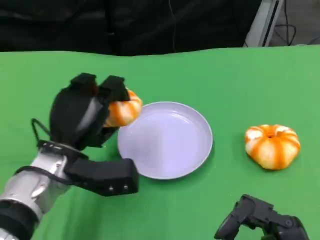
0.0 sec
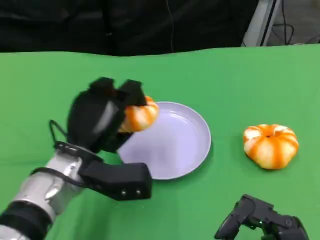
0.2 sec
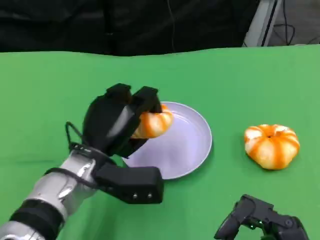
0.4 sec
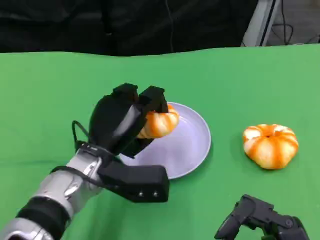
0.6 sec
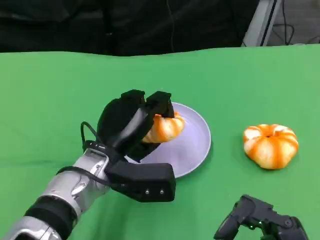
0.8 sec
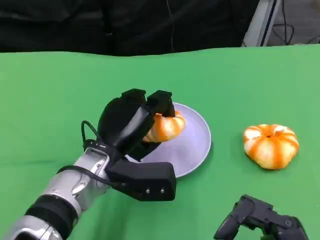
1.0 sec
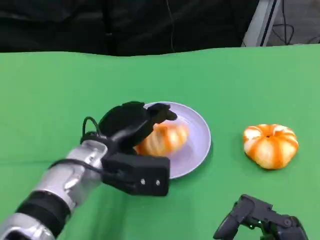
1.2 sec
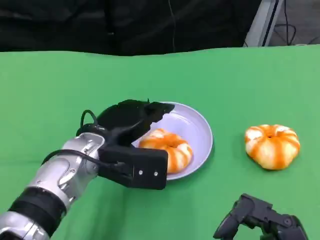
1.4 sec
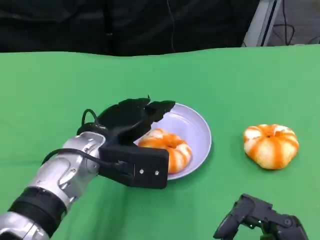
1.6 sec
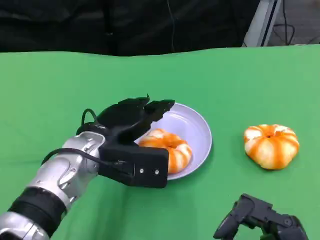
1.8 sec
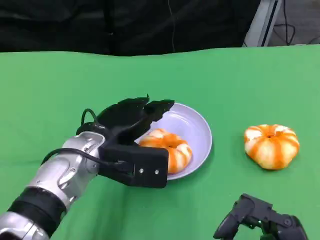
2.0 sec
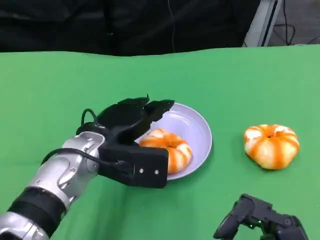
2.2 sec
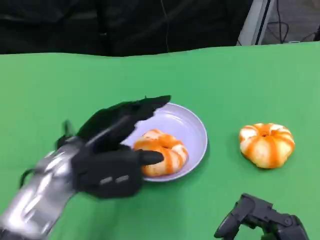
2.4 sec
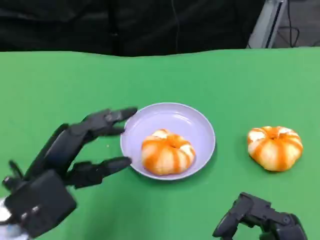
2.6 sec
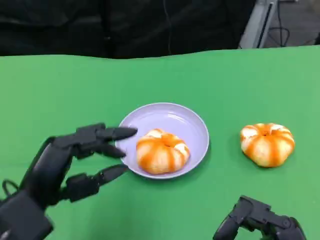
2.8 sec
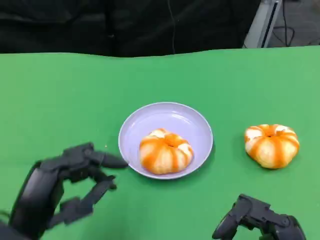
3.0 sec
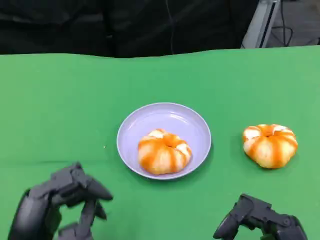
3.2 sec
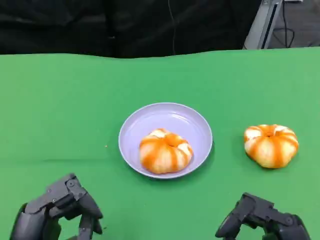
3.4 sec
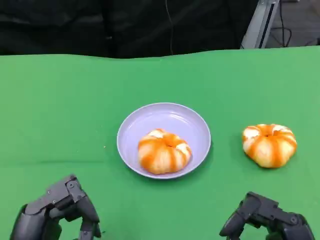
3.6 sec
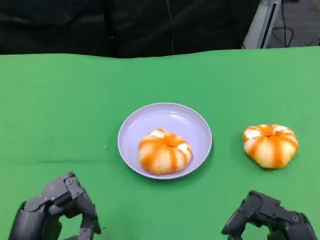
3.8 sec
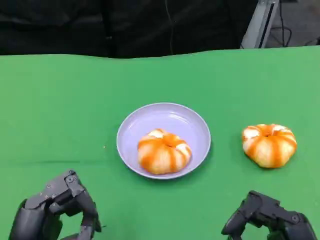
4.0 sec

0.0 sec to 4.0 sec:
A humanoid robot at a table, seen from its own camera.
Task of the whole recording: Grasp the bread from the table and place it into the plate.
1.4 sec to 2.6 sec: The left hand moves backward and to the left, approximately 15 cm.
2.6 sec to 4.0 sec: The left hand travels backward by some 10 cm.

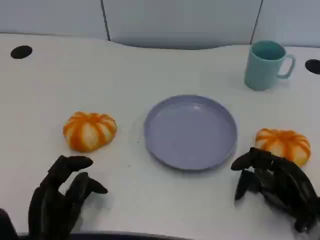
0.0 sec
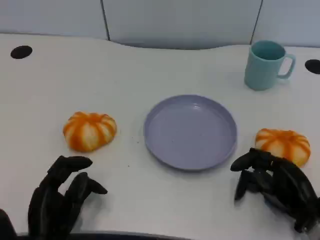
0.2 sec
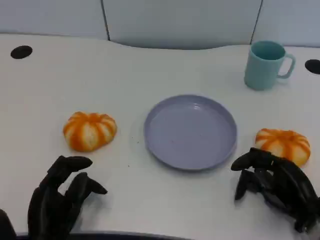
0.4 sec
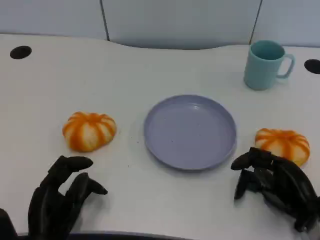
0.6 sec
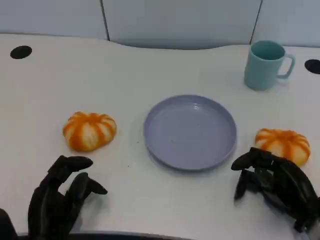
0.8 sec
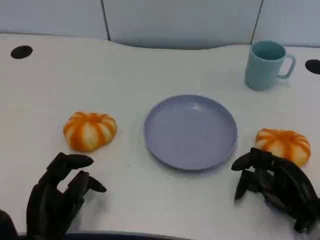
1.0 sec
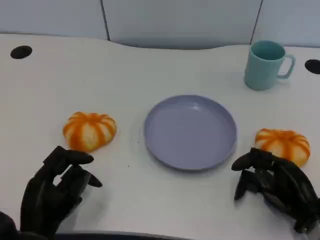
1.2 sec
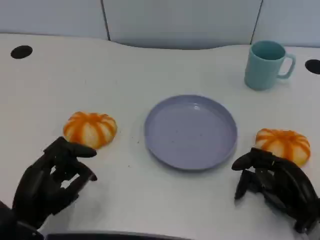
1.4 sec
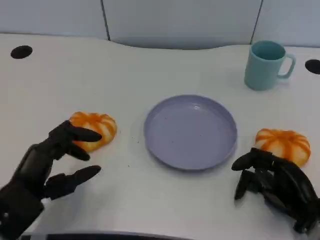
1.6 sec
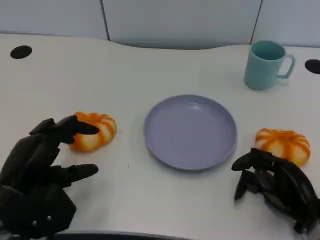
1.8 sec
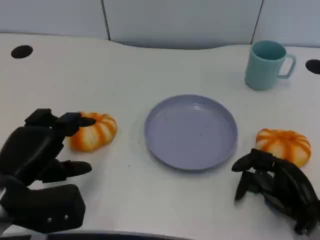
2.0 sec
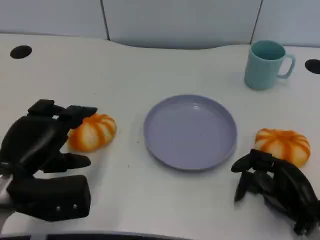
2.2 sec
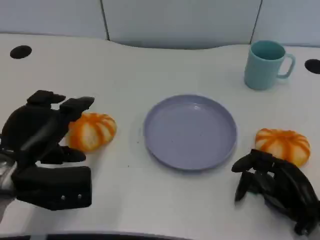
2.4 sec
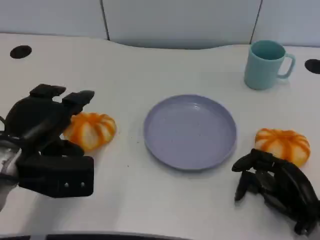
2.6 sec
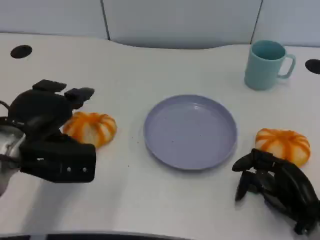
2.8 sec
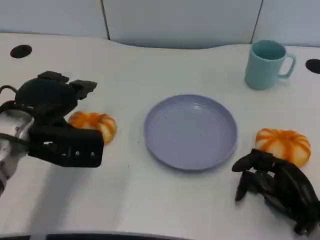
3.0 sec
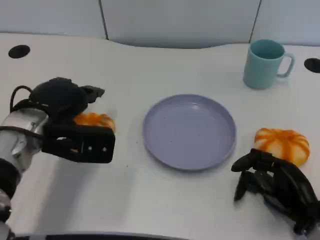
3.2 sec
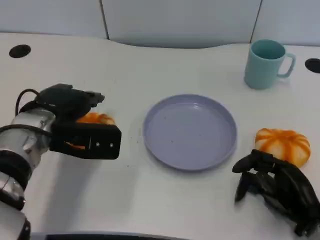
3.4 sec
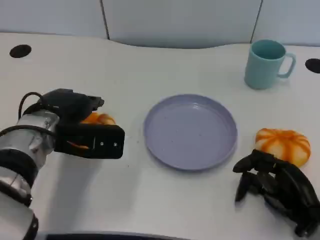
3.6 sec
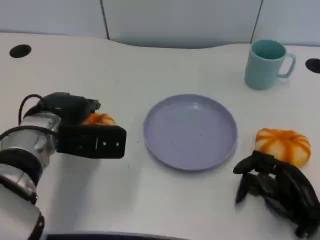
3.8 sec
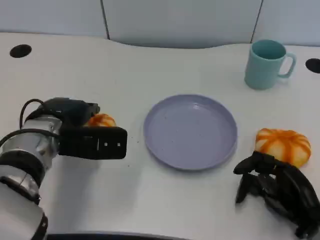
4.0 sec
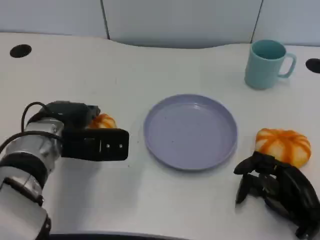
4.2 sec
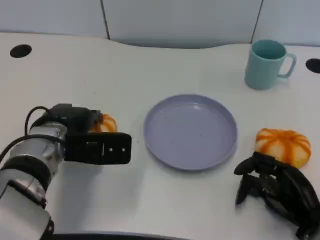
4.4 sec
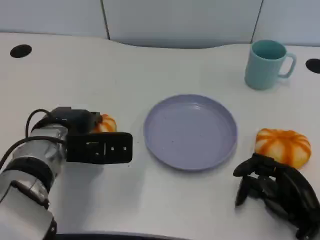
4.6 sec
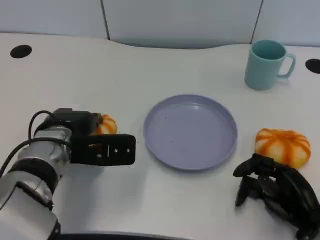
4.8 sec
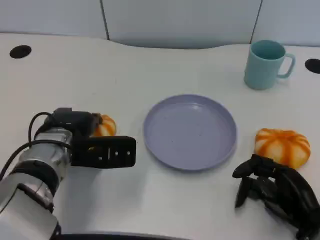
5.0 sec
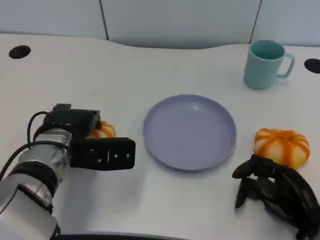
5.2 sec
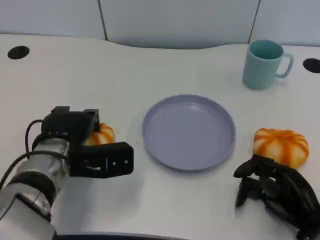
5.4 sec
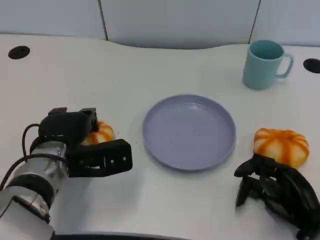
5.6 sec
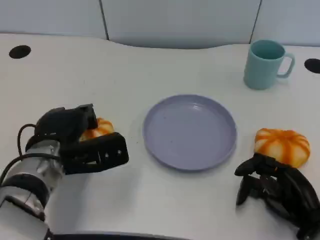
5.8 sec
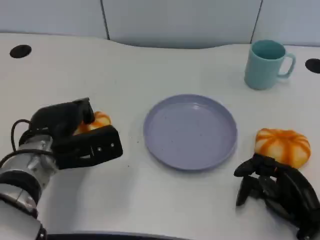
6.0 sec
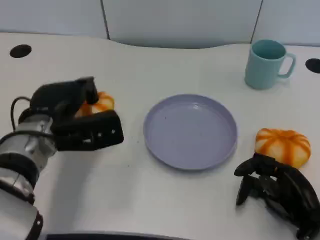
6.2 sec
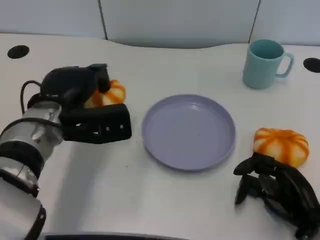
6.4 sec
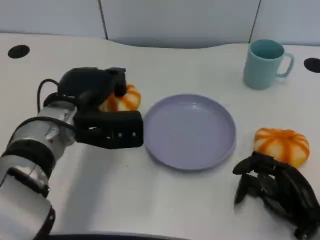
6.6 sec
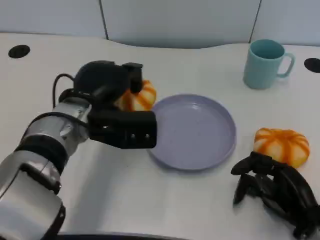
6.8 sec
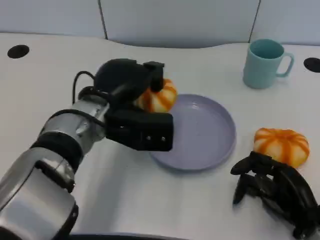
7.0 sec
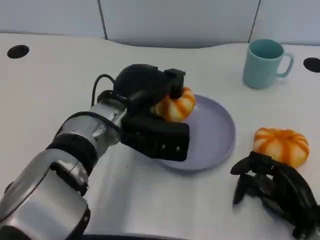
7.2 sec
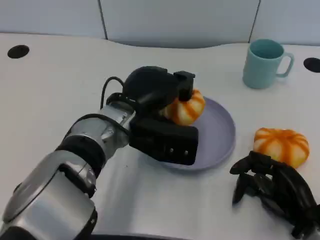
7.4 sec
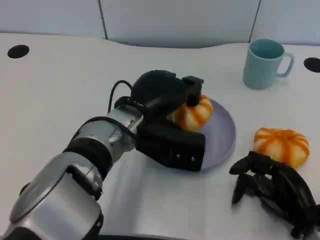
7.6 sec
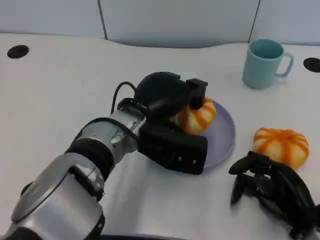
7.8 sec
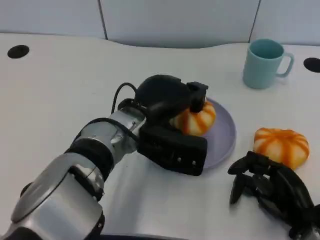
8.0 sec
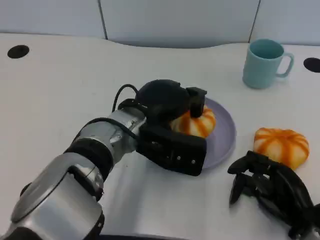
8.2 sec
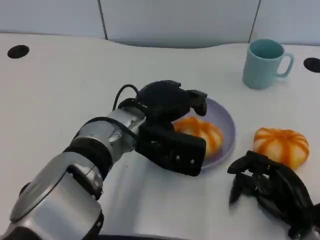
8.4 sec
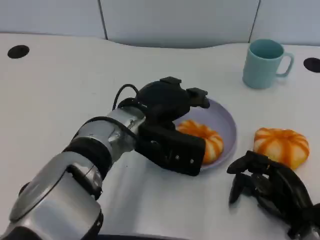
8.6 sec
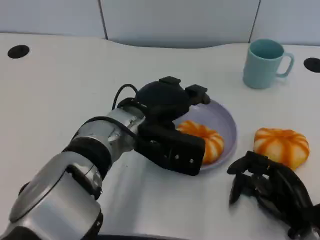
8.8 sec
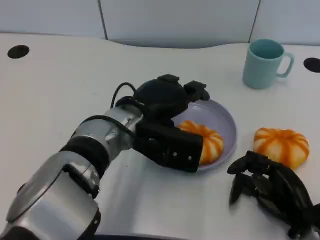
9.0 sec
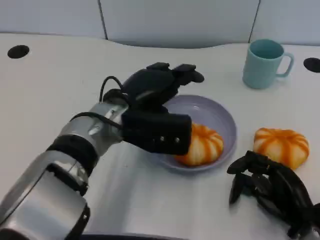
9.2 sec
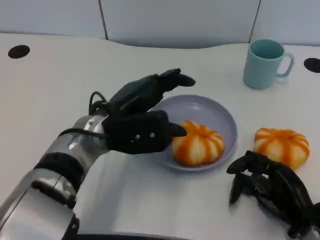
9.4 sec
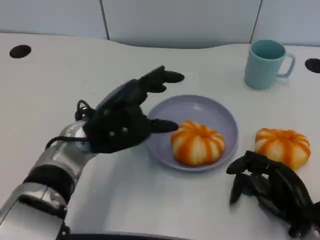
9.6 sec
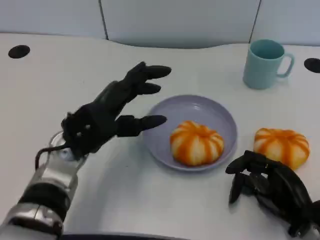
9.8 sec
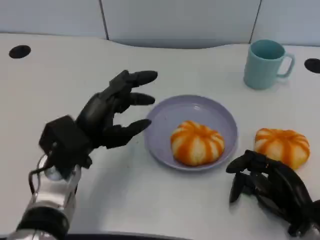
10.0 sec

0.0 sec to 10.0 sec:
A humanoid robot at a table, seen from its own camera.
Task of the whole recording: Grasp the bread from the table and place it into the plate.
0.0 sec to 1.4 sec: The left hand changes place by approximately 5 cm.
1.4 sec to 2.8 sec: The left hand travels forward and upward by about 15 cm.
2.8 sec to 4.2 sec: The left hand shifts about 5 cm to the right.
5.8 sec to 7.2 sec: The left hand is displaced to the right and upward by roughly 10 cm.
8.6 sec to 10.0 sec: The left hand goes approximately 10 cm to the left.

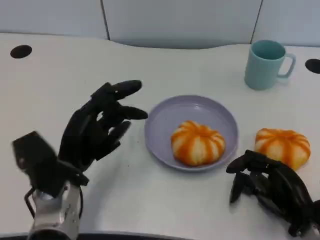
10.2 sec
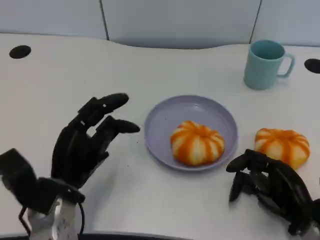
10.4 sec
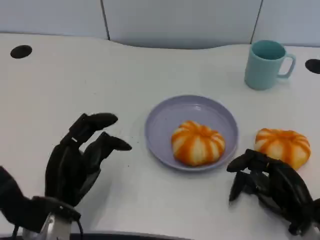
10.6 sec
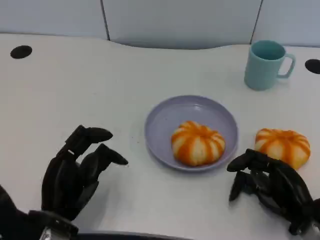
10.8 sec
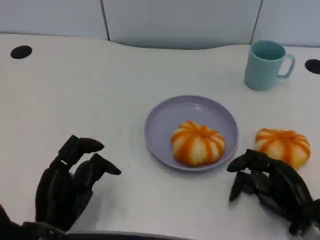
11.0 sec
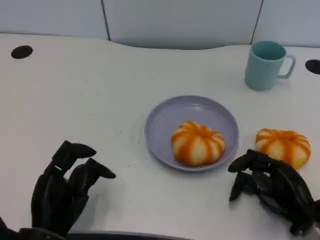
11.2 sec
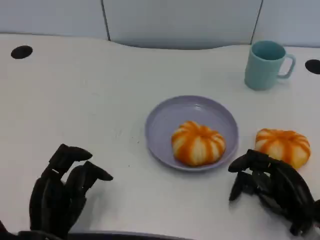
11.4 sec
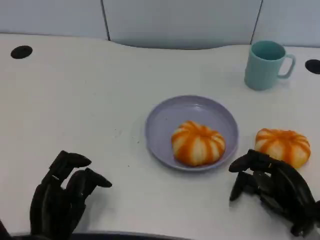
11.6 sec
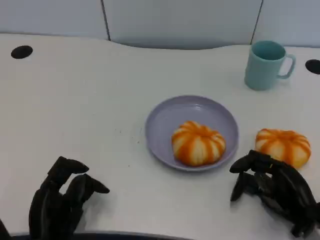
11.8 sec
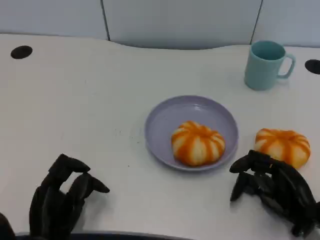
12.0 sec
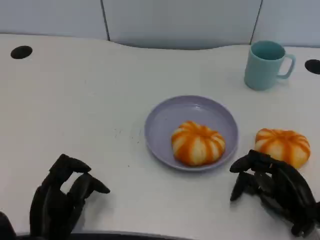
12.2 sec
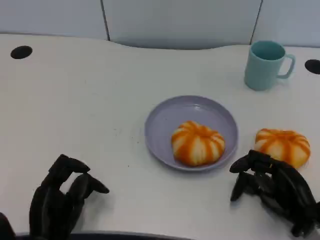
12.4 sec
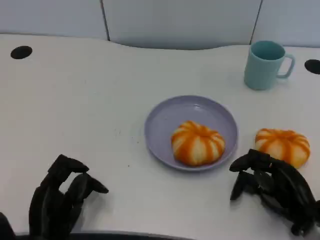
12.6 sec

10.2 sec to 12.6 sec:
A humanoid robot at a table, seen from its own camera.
Task of the whole recording: Grasp the bread from the table and place it into the plate.
10.2 sec to 11.4 sec: The left hand is displaced backward by approximately 10 cm.
11.4 sec to 12.6 sec: There are only small adjustments of the hands.

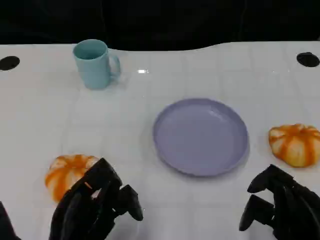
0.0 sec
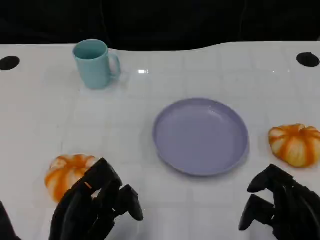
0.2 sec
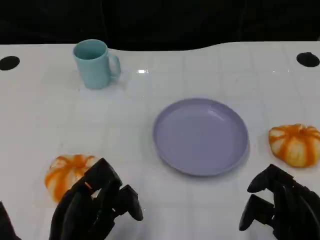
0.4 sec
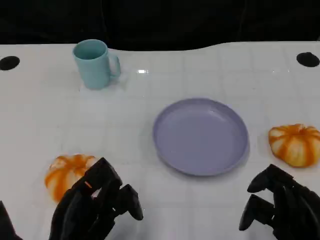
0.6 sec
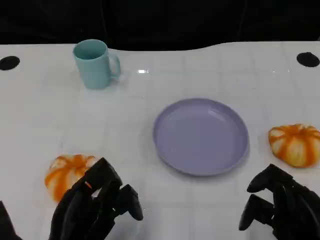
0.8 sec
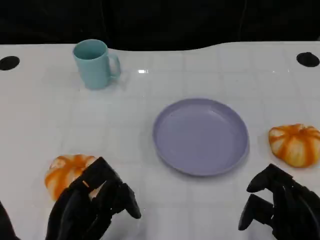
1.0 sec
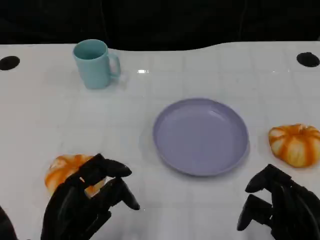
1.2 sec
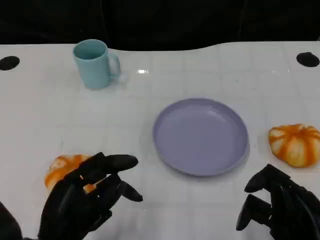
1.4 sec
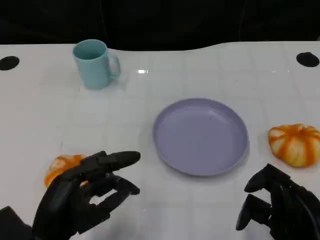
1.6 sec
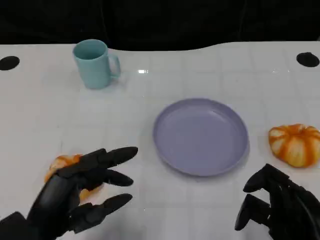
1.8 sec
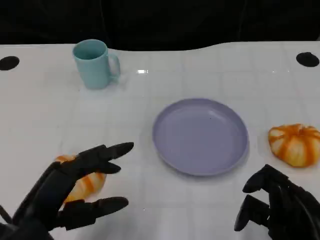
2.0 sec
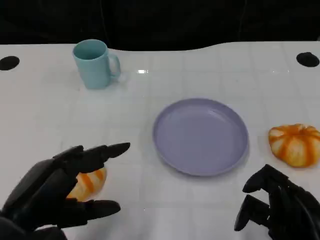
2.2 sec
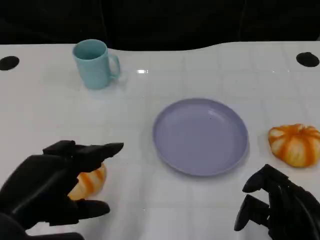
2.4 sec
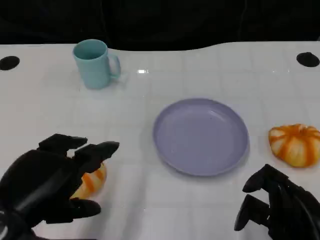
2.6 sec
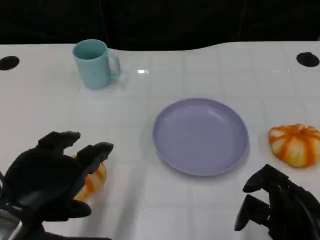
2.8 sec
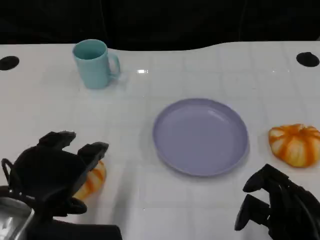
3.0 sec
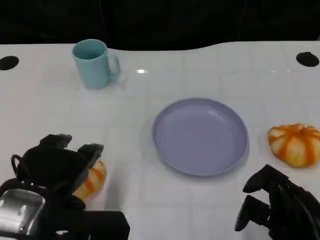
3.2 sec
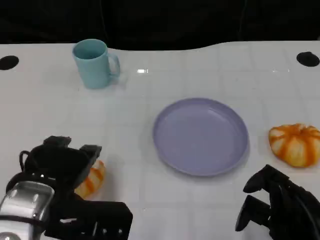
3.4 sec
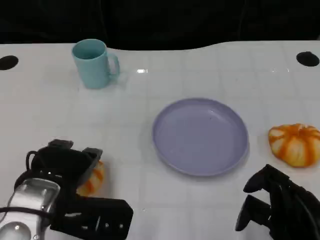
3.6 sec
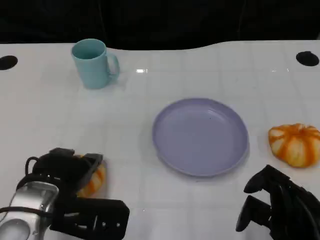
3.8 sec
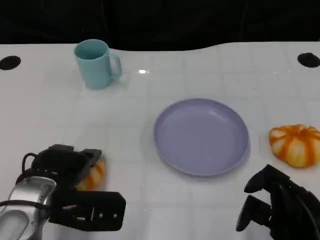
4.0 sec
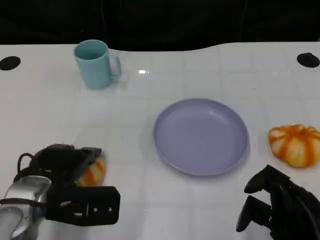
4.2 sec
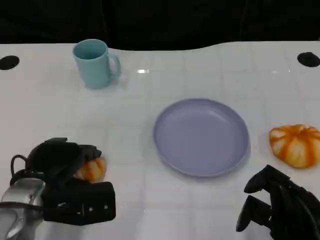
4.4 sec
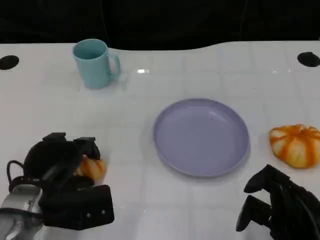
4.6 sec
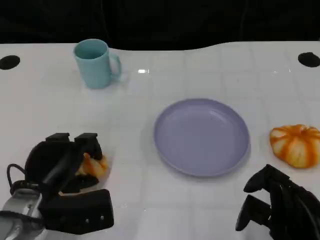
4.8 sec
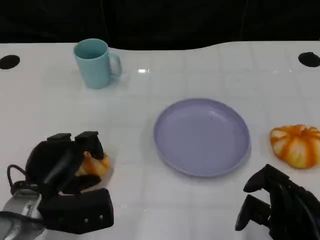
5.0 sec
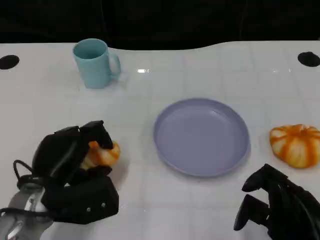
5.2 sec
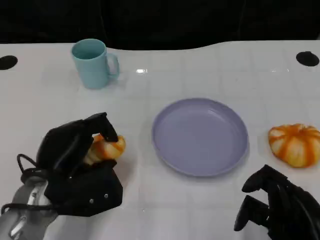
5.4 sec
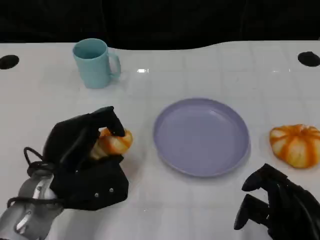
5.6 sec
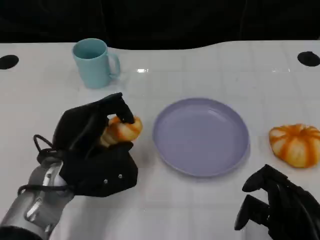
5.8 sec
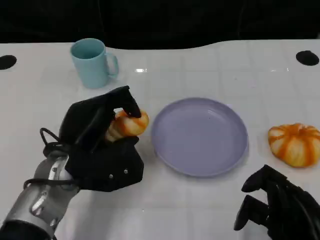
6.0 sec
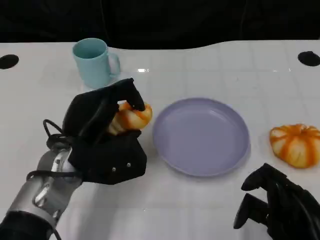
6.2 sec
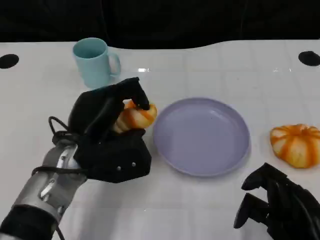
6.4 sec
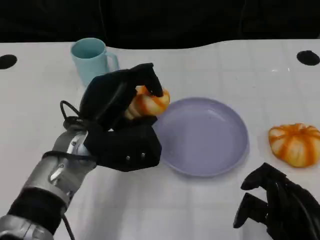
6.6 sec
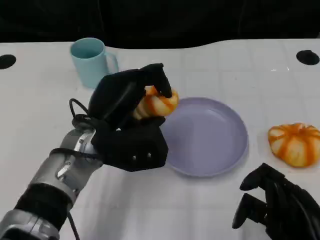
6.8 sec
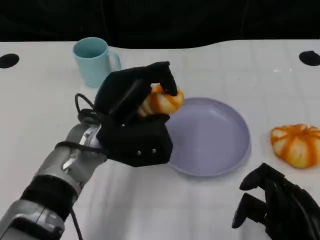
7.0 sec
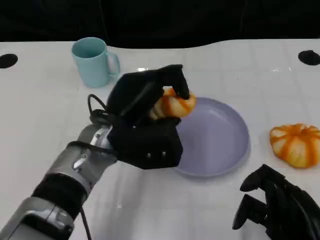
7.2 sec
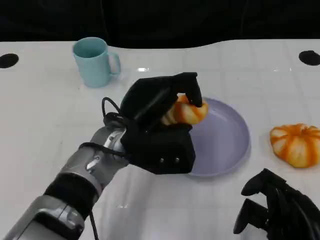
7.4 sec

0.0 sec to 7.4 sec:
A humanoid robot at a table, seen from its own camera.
Task of the whole recording: Grasp the bread from the table and place it into the plate.
1.4 sec to 3.0 sec: The left hand travels upward by approximately 10 cm.
3.0 sec to 4.4 sec: The left hand is displaced downward and forward by some 10 cm.
4.4 sec to 6.0 sec: The left hand goes roughly 5 cm to the right.
6.0 sec to 7.4 sec: The left hand goes about 10 cm to the right.
